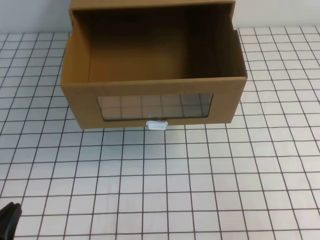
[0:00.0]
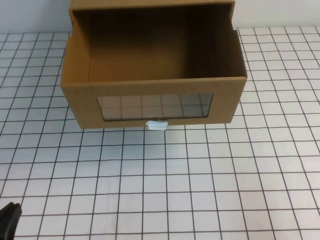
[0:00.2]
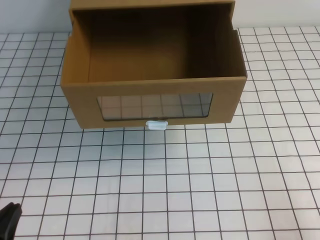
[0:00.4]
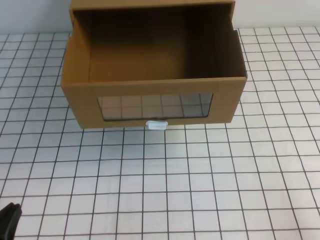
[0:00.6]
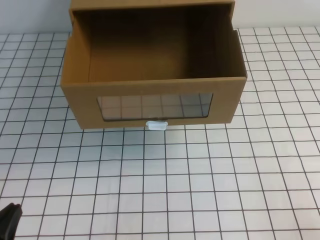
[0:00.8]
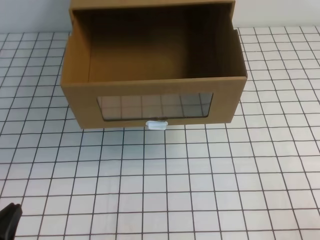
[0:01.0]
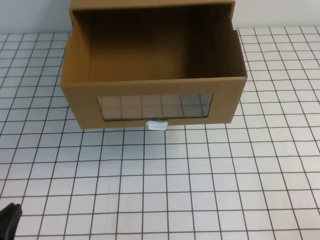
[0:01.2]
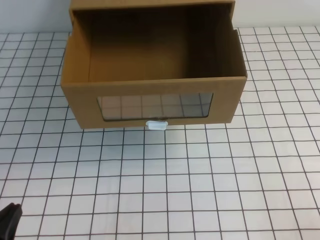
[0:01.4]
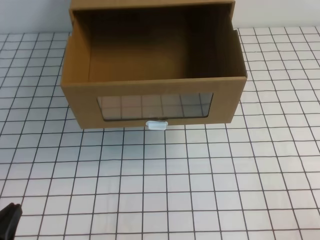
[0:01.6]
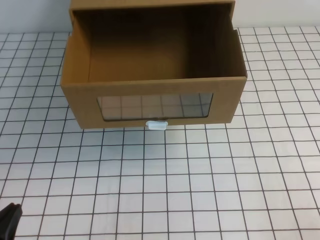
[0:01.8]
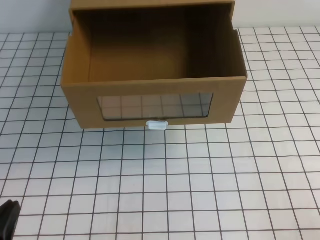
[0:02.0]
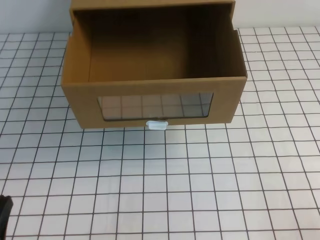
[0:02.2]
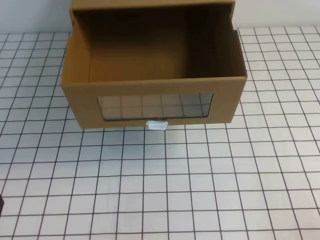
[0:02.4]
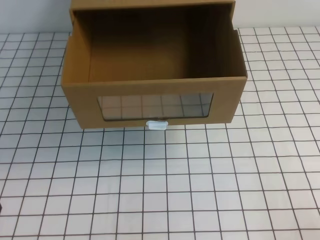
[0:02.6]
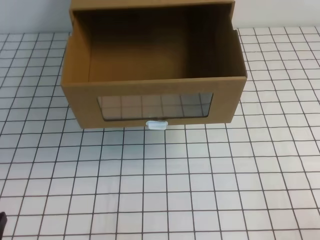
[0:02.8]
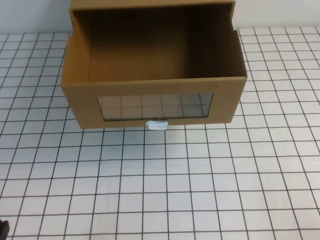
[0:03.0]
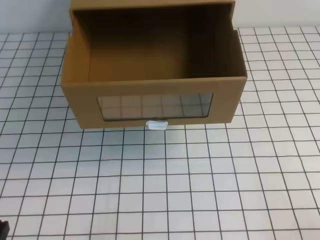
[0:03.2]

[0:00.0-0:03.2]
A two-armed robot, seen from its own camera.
Task of the whole recording: open the shoebox on the white tablecloth.
0:00.0 to 0:01.6: The right gripper heads downward, covering approximately 15 cm.
